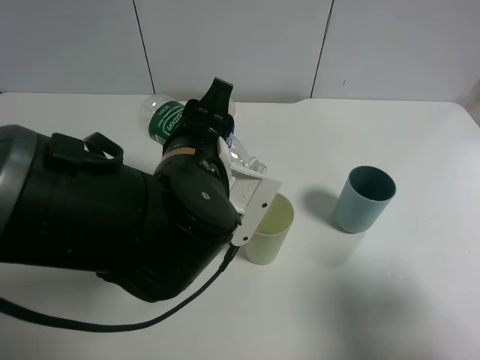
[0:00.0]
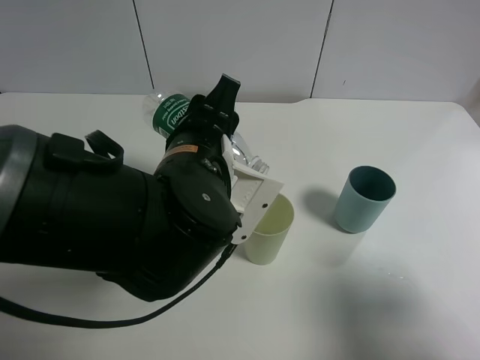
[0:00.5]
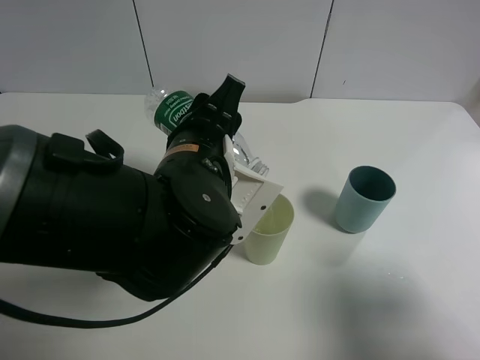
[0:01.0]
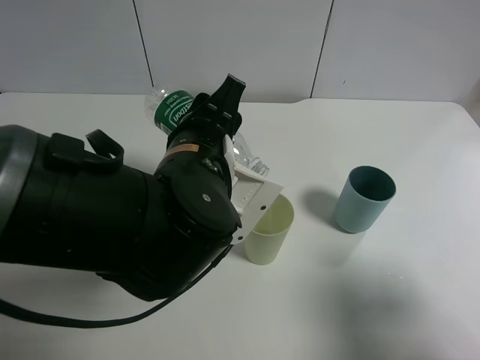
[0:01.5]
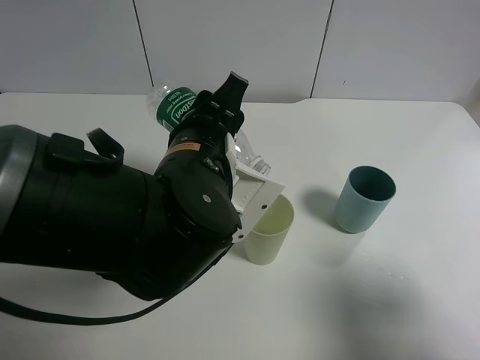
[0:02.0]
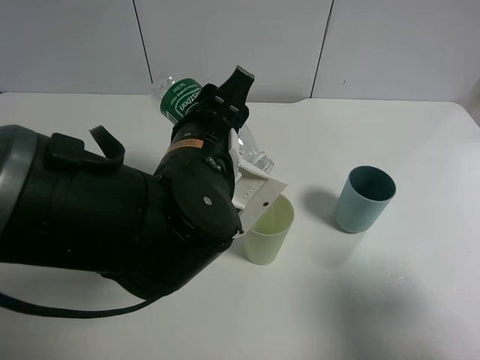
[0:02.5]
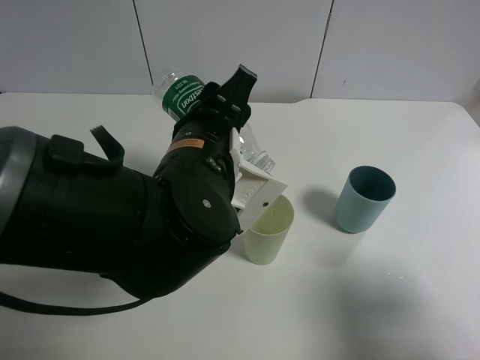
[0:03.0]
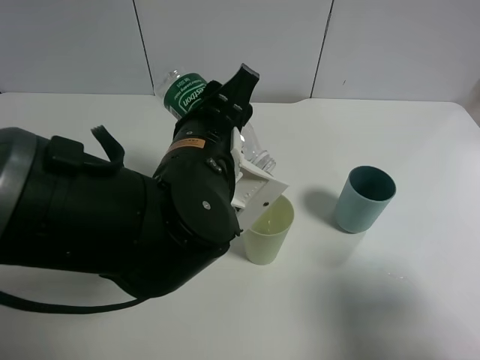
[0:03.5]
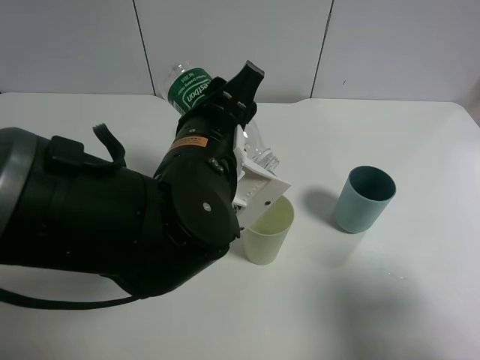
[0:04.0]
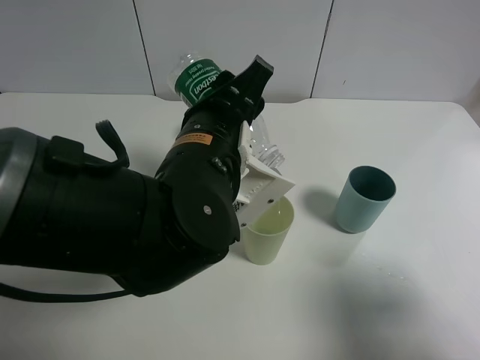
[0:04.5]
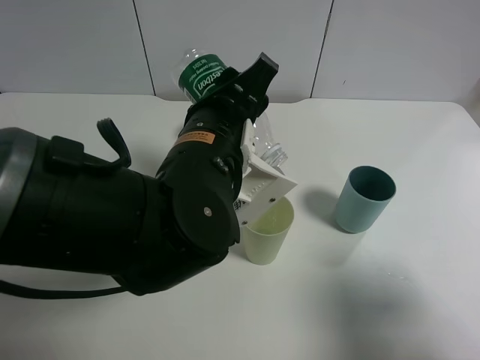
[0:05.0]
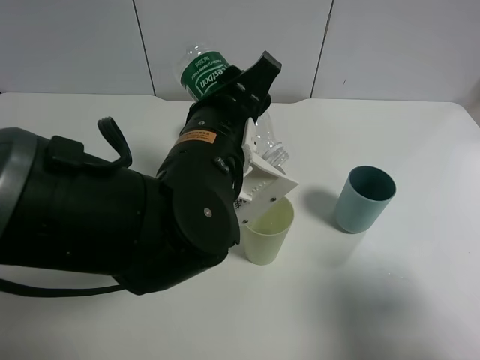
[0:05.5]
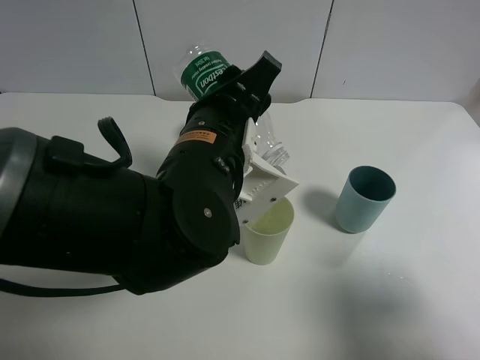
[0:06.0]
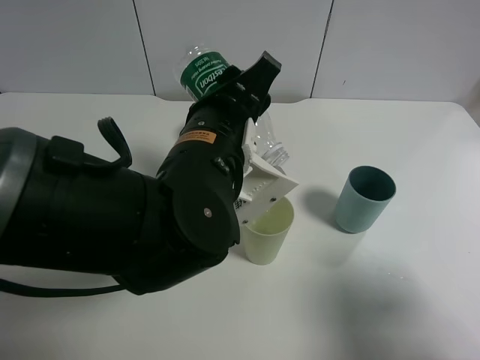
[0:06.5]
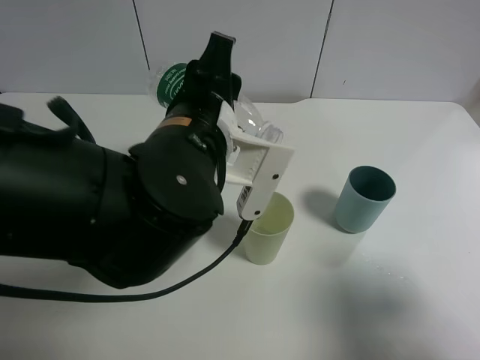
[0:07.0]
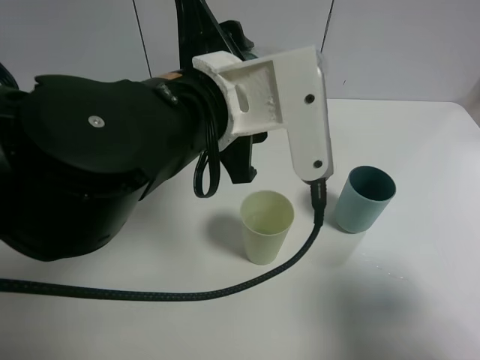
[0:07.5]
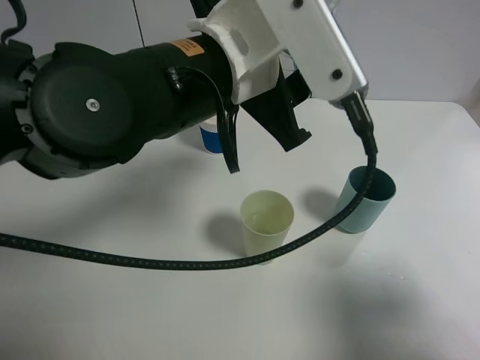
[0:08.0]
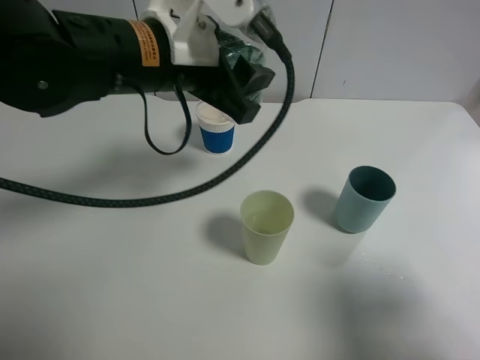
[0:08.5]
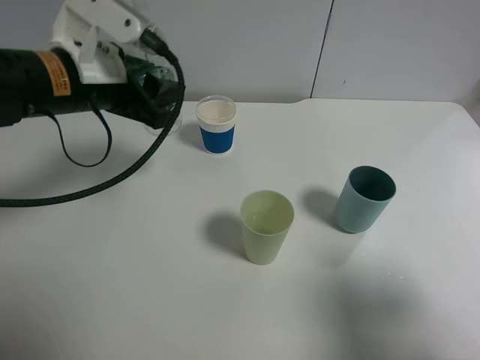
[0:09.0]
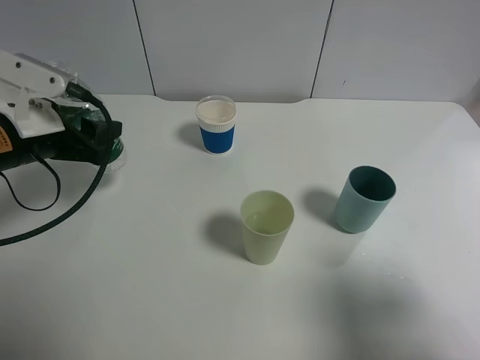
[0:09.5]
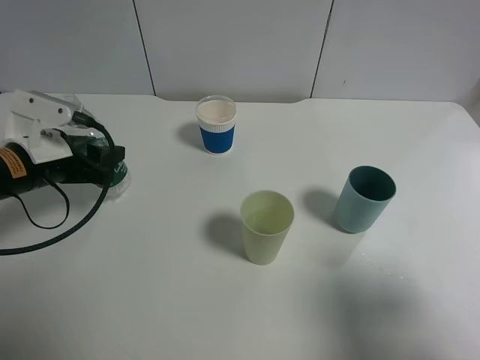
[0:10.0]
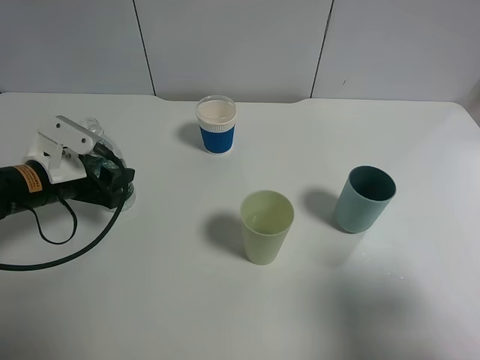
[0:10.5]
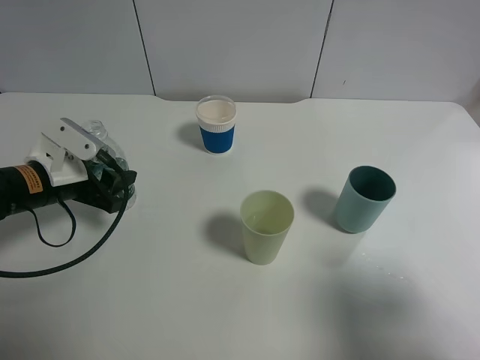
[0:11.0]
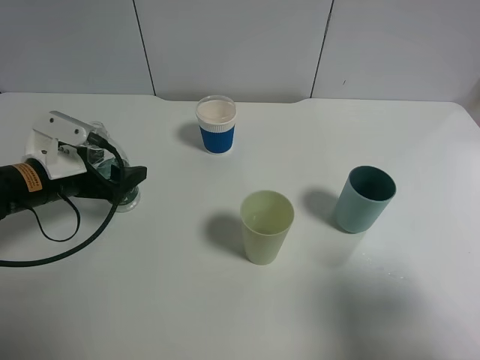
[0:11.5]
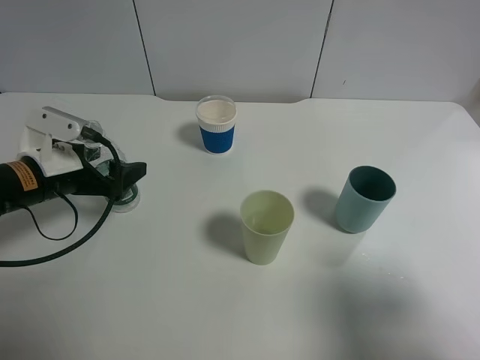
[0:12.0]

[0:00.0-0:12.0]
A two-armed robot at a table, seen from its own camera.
Task of the whole recording: use a gripper to hold the bottle of the drink and pour it into a random cup.
Step, 0:00.0 to 0:07.0: Pour the mineral water into the glass with the left gripper.
0:00.0 to 0:04.0: The grippers move only a little.
0:04.0 to 0:06.0: The grippers stay close to where they were, moving slightly.
0:06.0 to 0:08.0: The left gripper goes roughly 5 cm upward.
0:08.0 to 0:10.0: The left gripper moves to the left and downward, some 25 cm.
0:10.0 to 0:12.0: The left gripper opens its fingers.

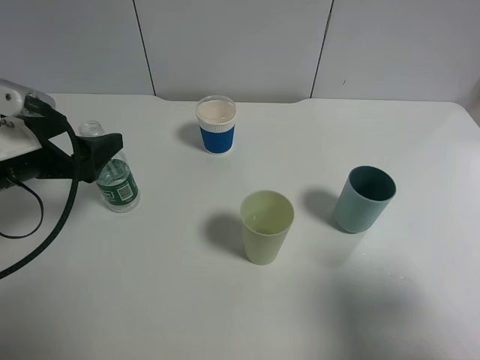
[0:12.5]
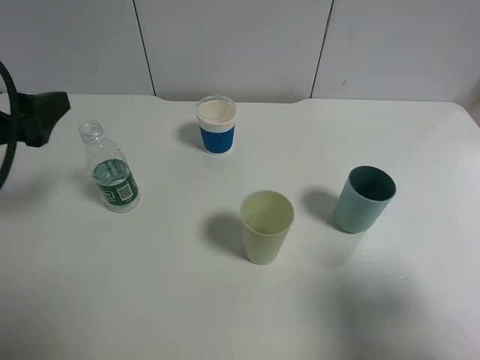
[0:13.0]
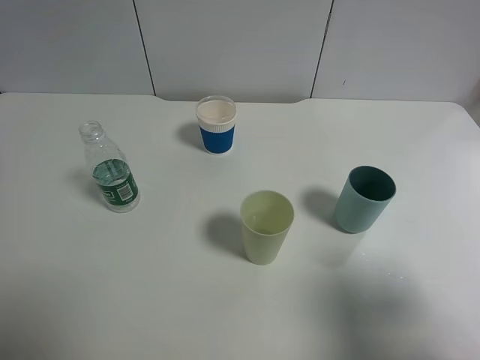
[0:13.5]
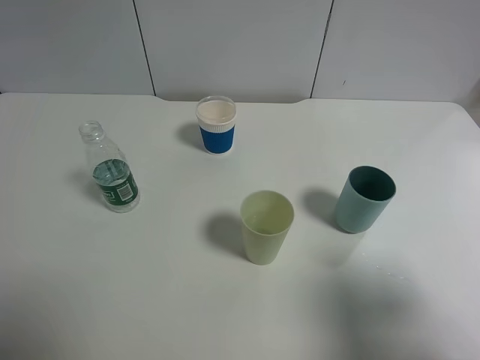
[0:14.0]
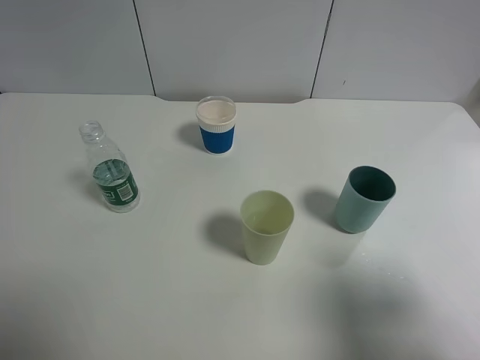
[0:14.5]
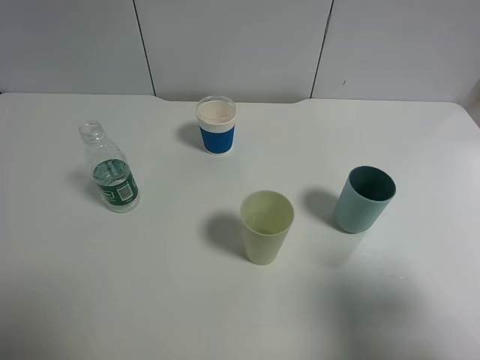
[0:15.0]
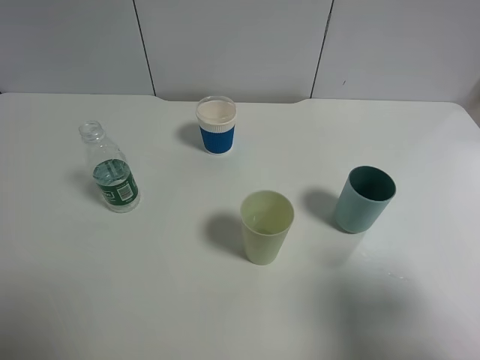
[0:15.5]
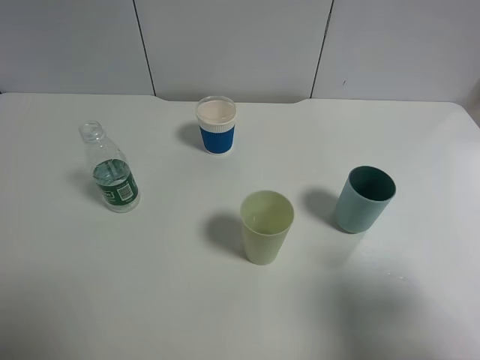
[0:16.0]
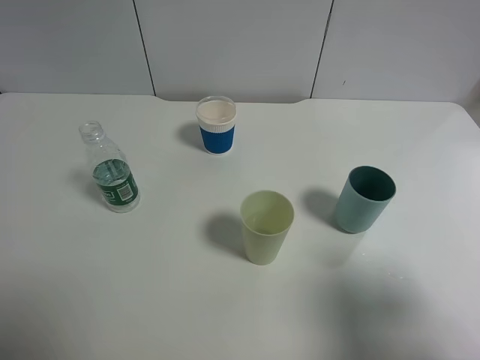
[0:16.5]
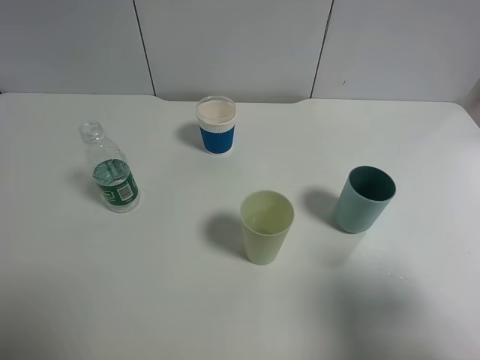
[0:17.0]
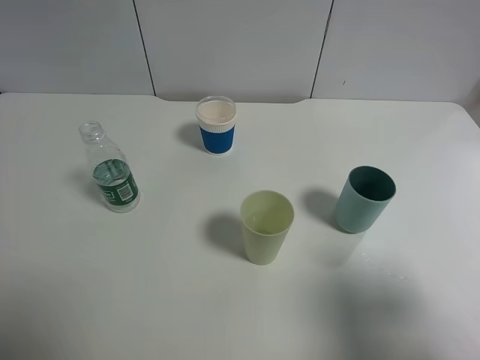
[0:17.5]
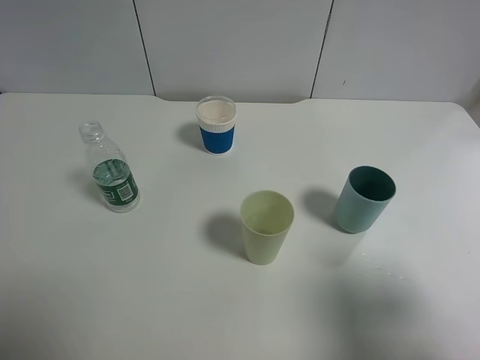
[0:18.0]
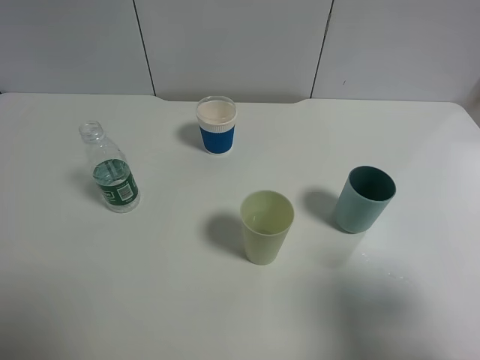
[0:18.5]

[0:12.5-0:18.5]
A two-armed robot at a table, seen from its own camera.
Task of the whole recording: use a gripper to hold the bottle of the drink and pour it into a random cup.
0:12.5 to 0:14.5: The left gripper moves backward and upward, approximately 25 cm.
0:16.5 to 0:18.5: Both grippers stay put.
